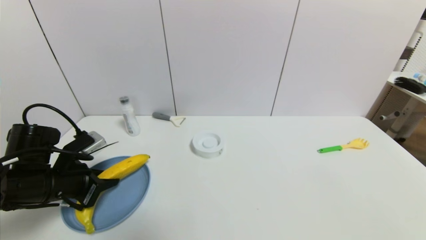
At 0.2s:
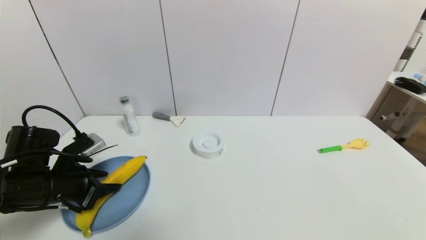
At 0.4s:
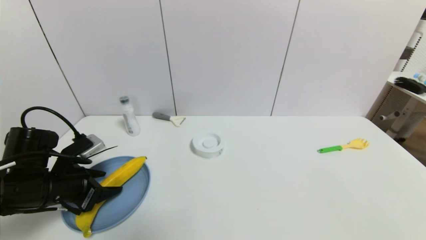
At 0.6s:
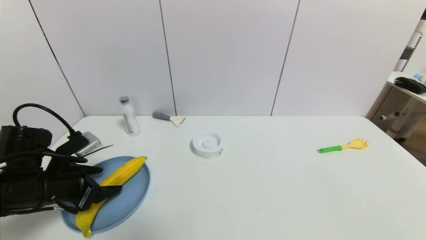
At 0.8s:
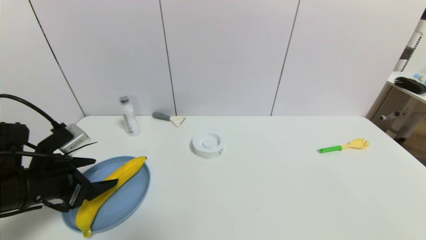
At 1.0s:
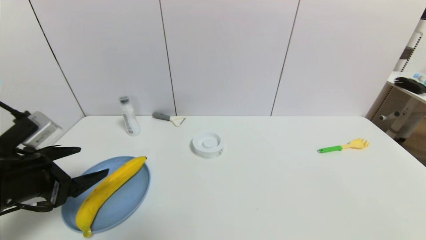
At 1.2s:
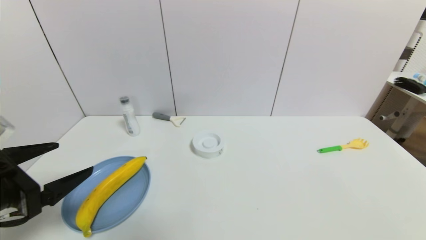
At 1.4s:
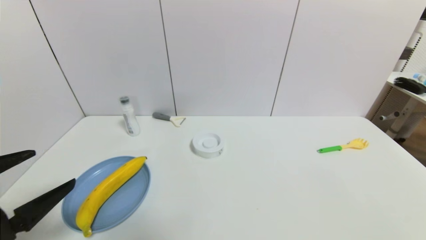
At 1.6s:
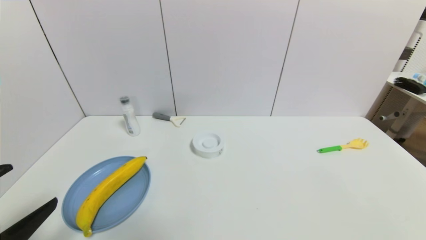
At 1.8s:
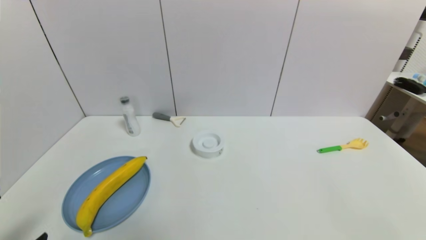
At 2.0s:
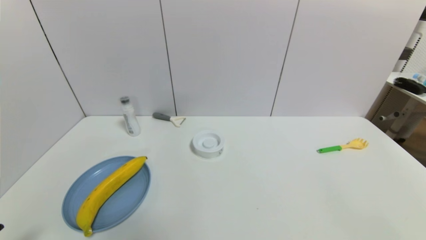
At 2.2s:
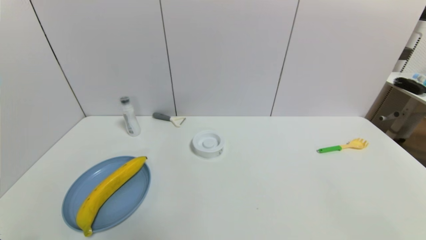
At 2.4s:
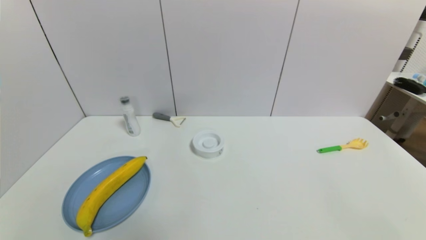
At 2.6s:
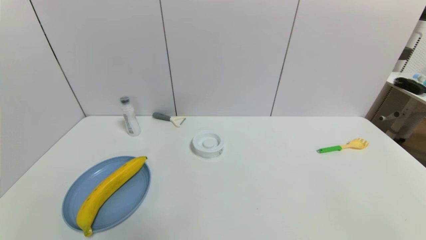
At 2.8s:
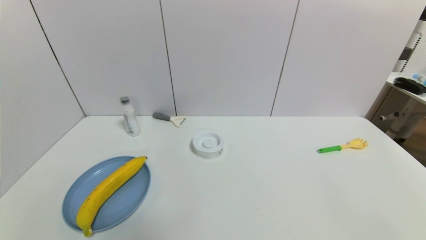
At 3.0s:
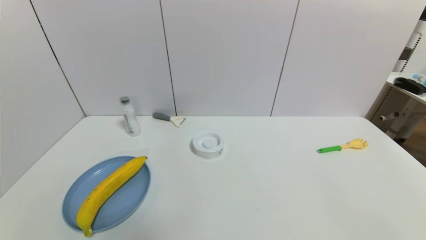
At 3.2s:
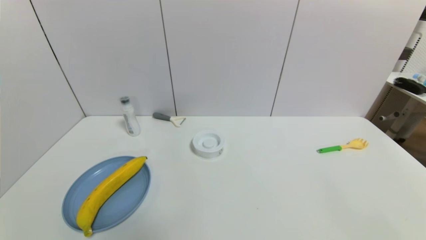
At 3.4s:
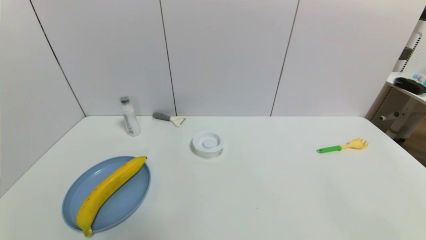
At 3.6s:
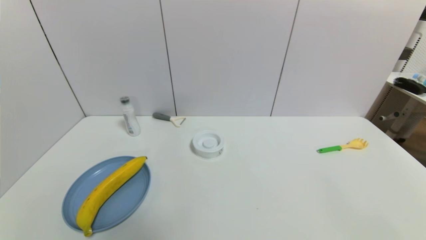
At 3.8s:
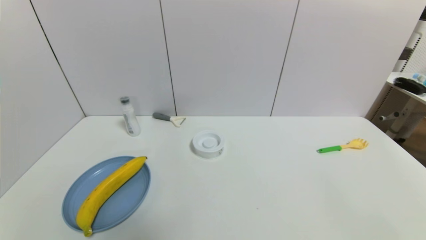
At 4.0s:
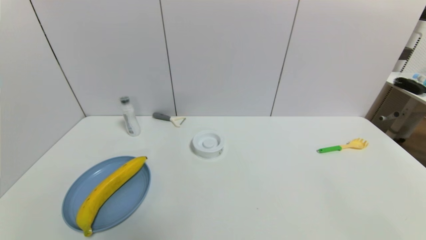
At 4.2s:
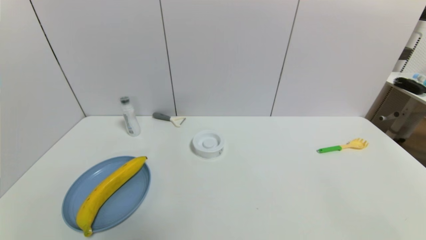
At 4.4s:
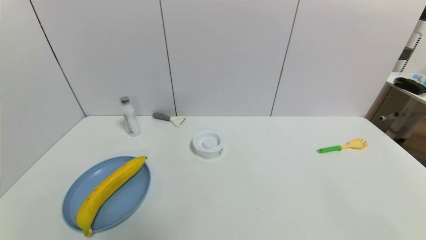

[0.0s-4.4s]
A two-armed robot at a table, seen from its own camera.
Task of the whole recording: use a gripper to pick the target object and place on the blue plate.
0.0s to 1.4s: The left gripper goes some 15 cm backward and upward, and opens its fingers.
1.4s to 3.0s: The left gripper heads downward and backward, covering approximately 15 cm.
3.0s to 4.4s: Both grippers stay put.
